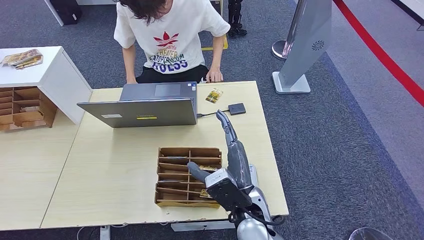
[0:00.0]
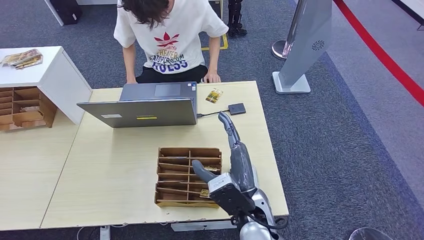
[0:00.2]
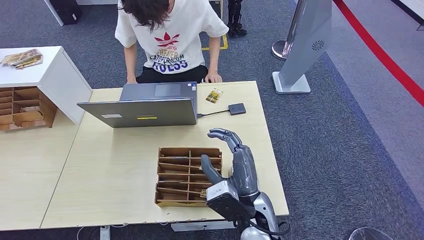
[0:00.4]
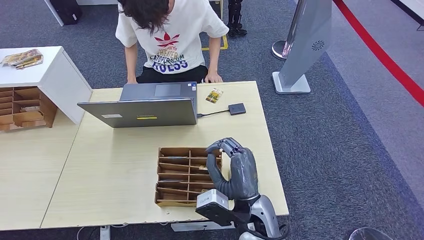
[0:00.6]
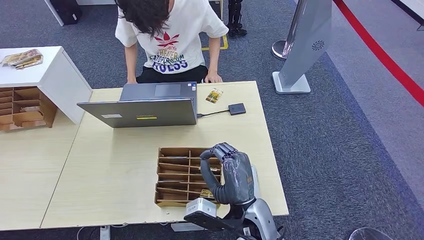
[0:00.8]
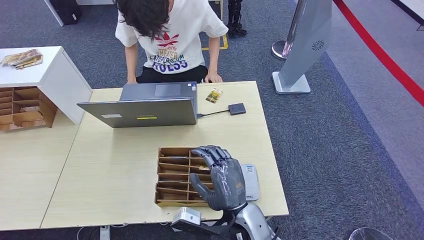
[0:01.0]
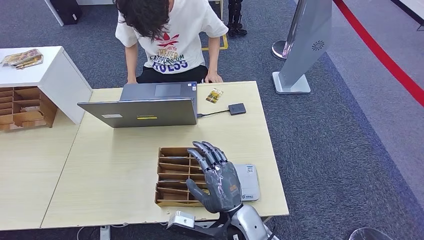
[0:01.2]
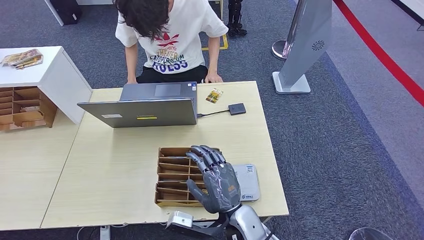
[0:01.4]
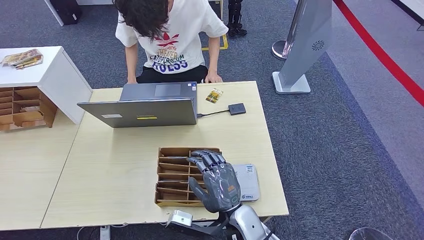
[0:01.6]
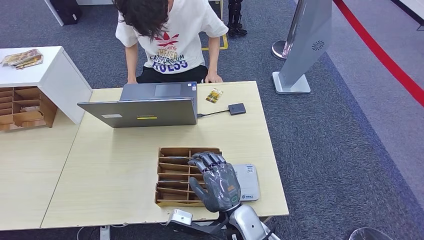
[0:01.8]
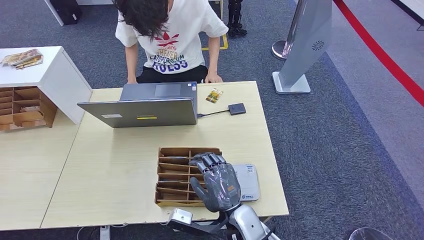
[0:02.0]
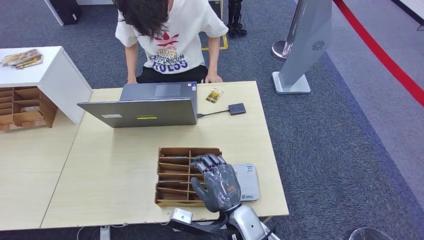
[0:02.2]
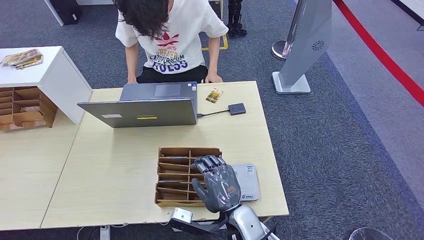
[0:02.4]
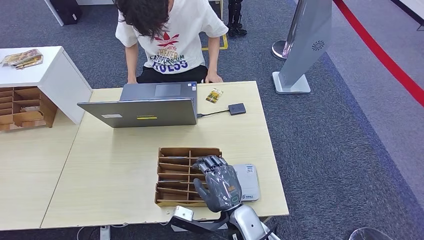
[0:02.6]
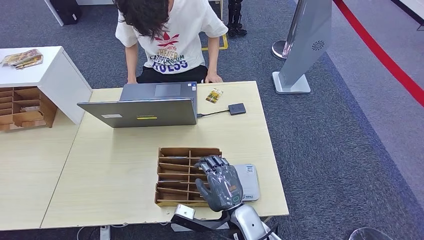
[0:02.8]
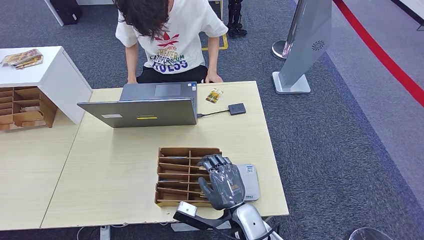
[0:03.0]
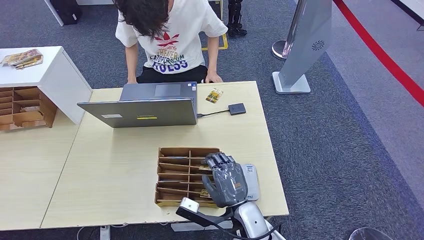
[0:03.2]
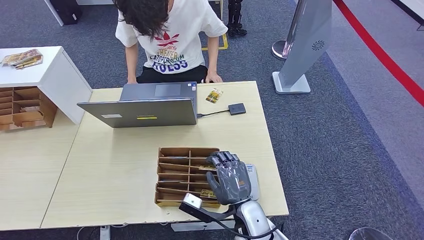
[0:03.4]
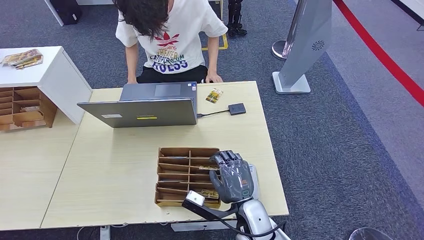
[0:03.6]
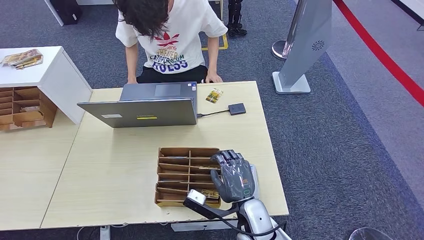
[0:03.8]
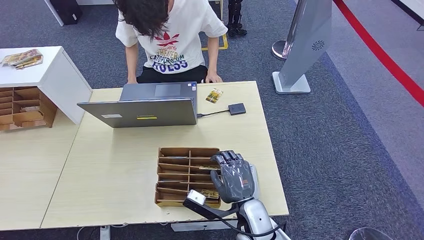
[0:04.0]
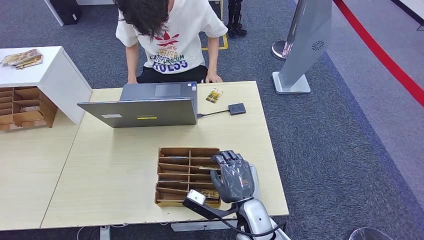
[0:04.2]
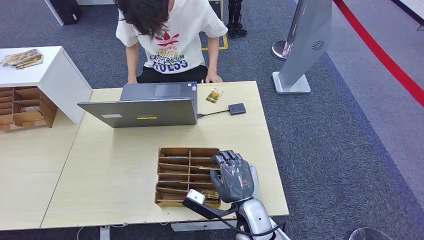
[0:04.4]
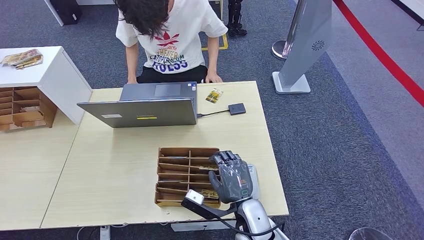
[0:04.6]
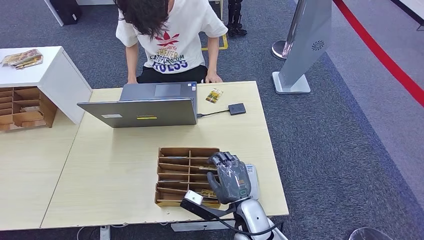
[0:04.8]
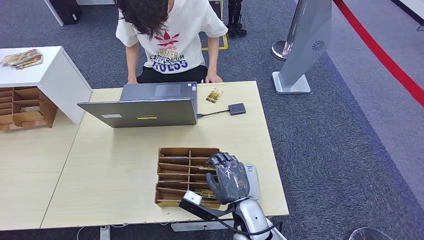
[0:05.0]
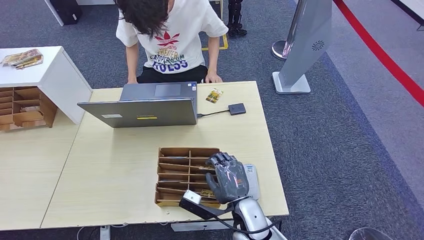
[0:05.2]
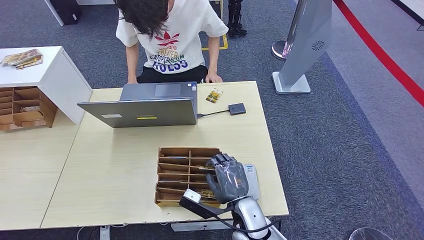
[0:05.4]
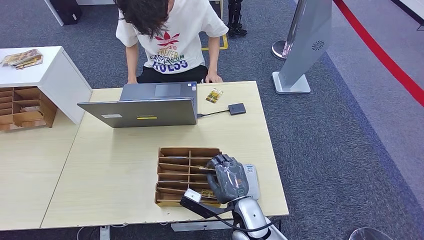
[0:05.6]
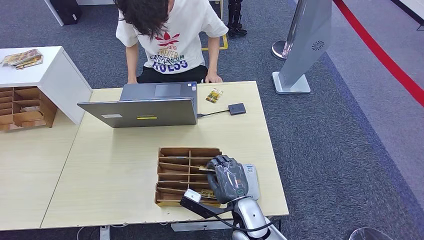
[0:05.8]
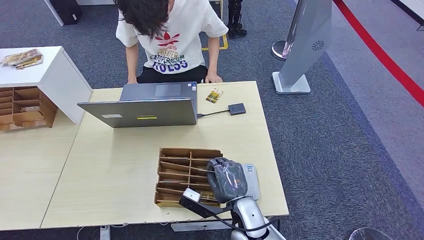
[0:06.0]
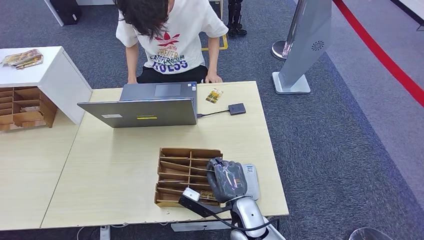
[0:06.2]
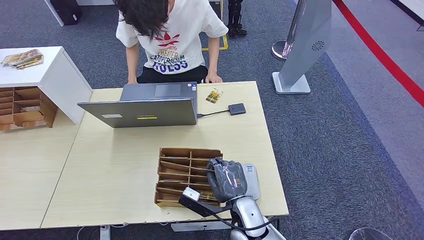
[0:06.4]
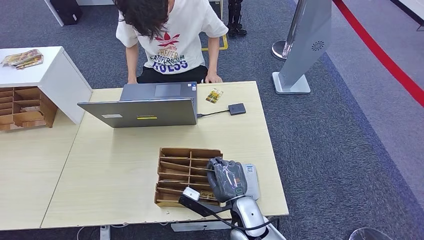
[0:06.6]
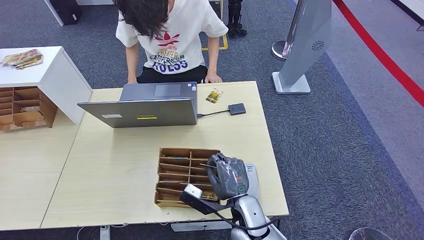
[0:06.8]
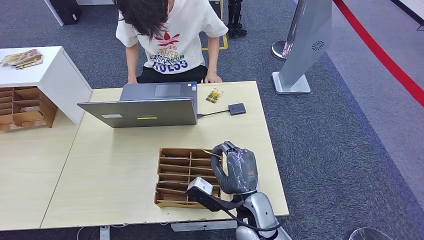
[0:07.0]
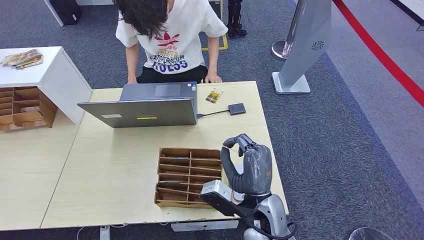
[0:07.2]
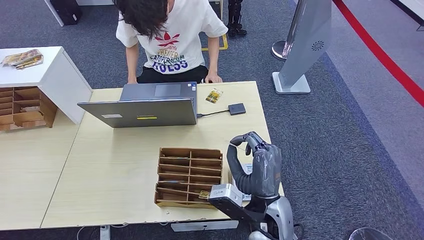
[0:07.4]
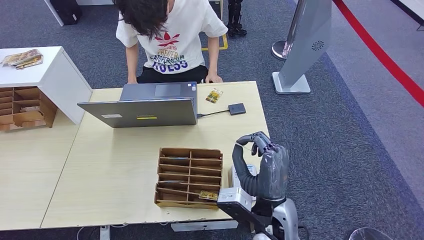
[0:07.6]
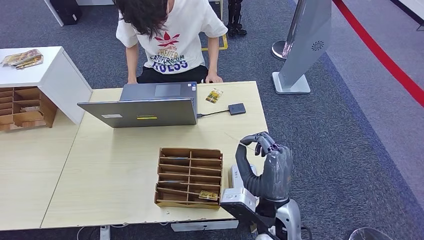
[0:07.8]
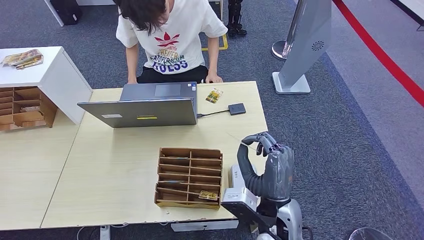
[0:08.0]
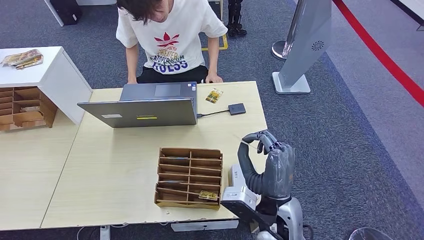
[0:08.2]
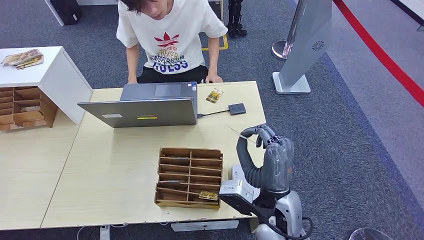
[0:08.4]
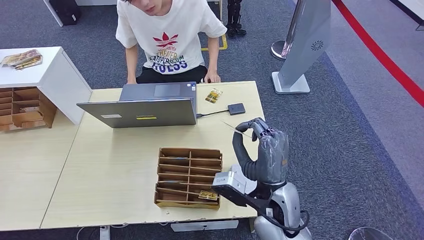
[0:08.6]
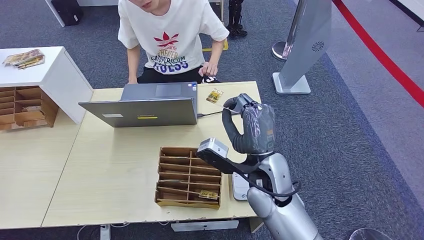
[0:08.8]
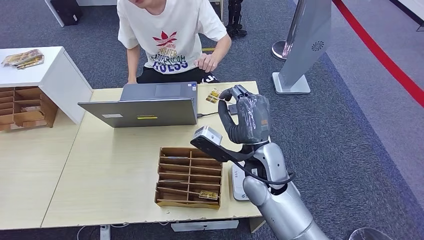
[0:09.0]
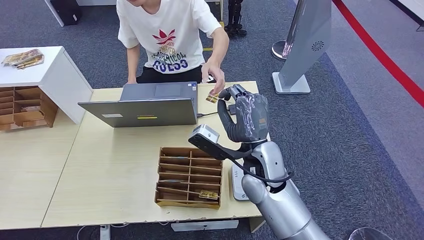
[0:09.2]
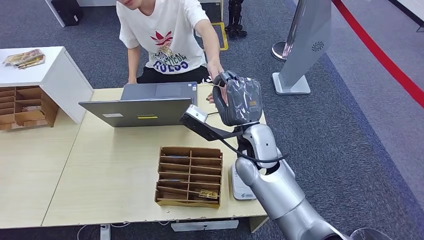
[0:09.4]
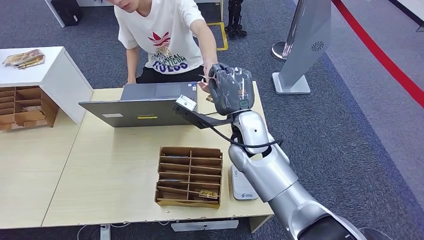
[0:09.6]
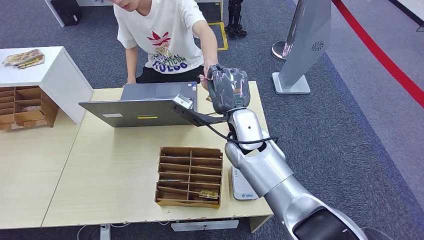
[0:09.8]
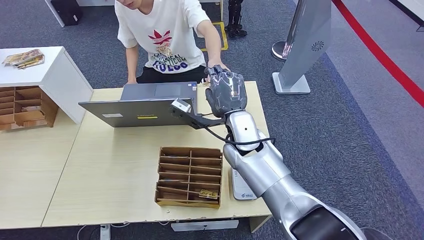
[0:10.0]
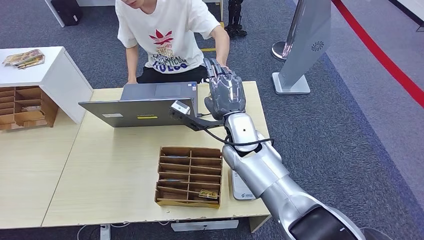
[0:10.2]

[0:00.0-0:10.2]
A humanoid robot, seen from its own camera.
Step, 0:00.0 to 0:07.4: Pick up the room key from the key card box.
0:00.0 to 0:01.4: The right hand ends up roughly 5 cm from where it was.
0:01.4 to 0:04.4: The hands move only a little.
0:04.4 to 0:05.8: The hands stay close to where they were, moving slightly.
0:05.8 to 0:07.2: The right hand is displaced upward by roughly 10 cm.
0:07.2 to 0:08.8: The right hand moves forward and upward, roughly 10 cm.
0:08.8 to 0:10.2: The right hand shifts about 10 cm forward.

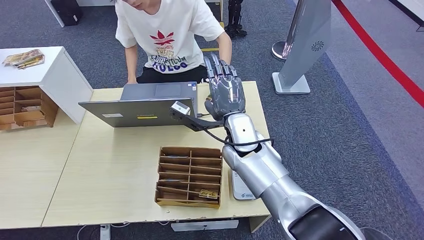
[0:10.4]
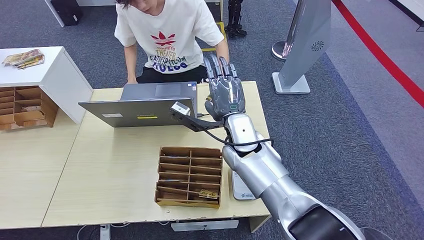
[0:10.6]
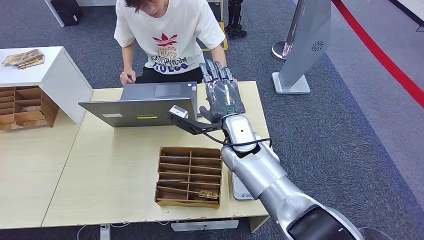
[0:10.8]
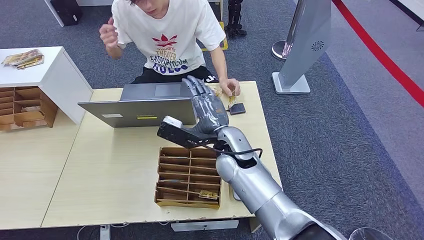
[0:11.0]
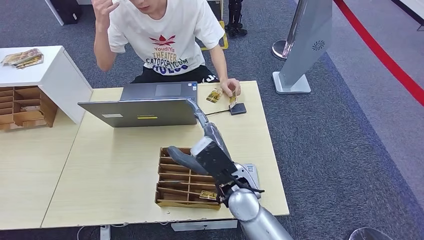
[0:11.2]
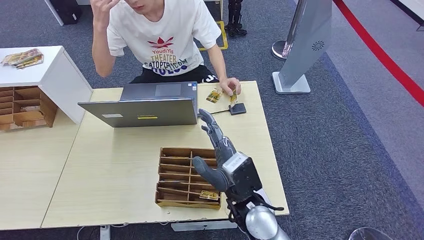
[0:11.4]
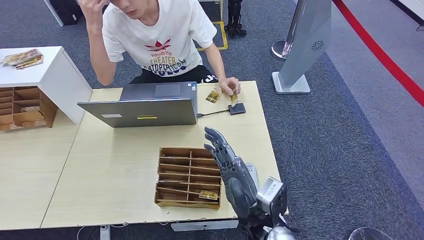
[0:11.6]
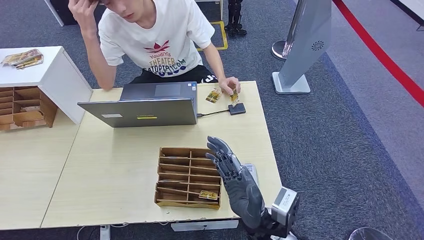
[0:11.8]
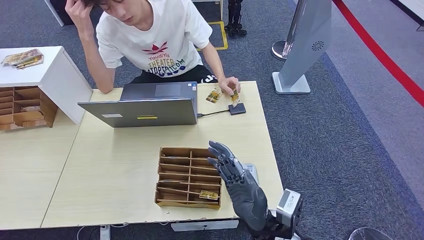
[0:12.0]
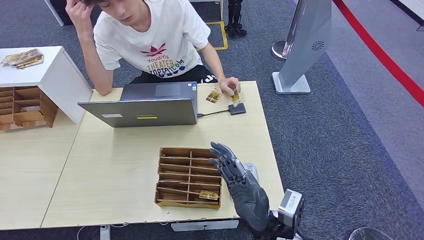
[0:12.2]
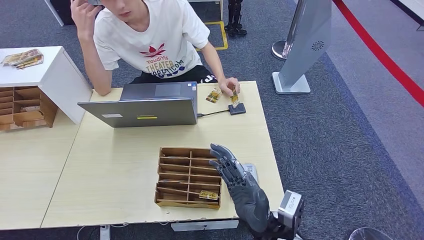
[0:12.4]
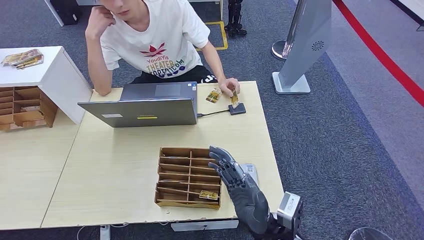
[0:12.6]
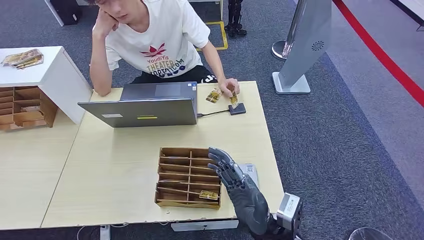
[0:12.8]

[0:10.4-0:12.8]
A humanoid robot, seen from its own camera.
Step, 0:10.4 to 0:12.6: Hand the room key to the person.
0:10.4 to 0:11.6: The left hand moves backward, some 5 cm. The right hand heads backward, covering about 20 cm.
0:11.6 to 0:12.8: The right hand ends up approximately 5 cm from where it was.
